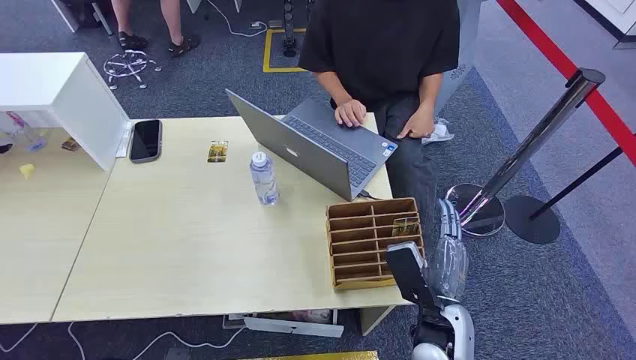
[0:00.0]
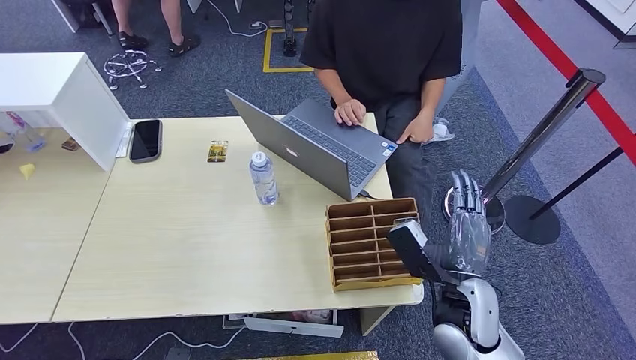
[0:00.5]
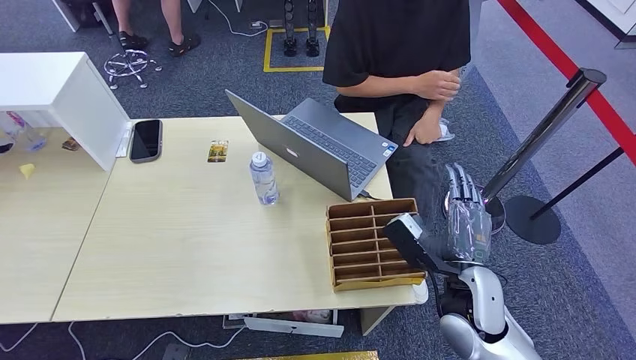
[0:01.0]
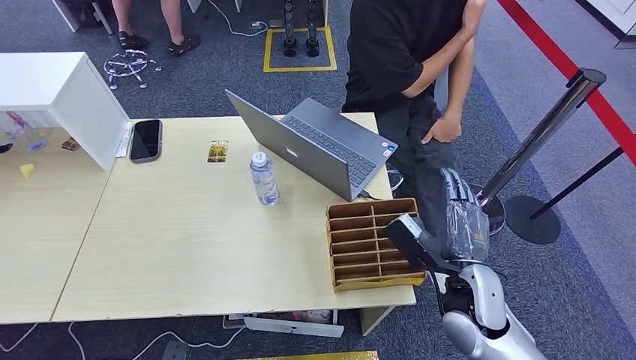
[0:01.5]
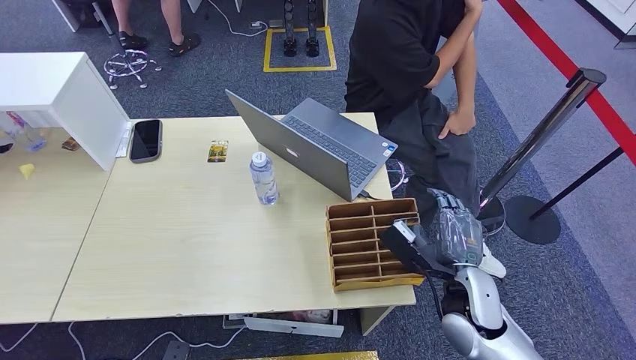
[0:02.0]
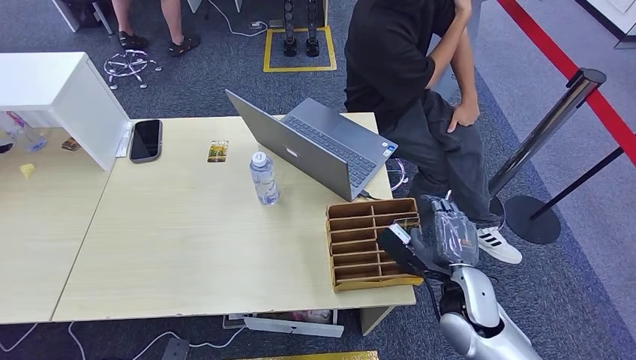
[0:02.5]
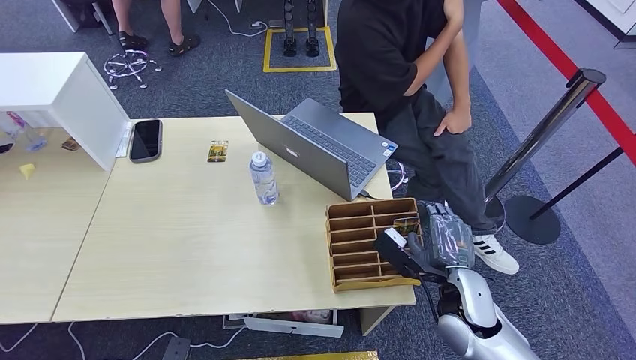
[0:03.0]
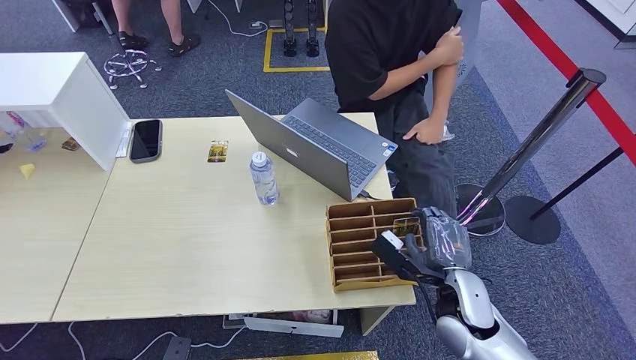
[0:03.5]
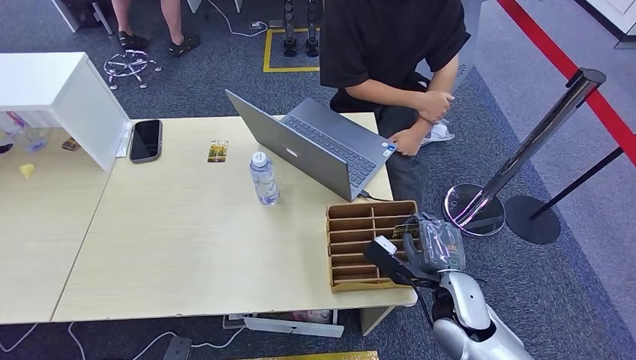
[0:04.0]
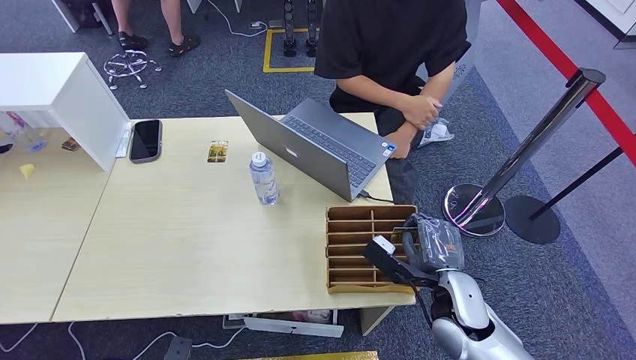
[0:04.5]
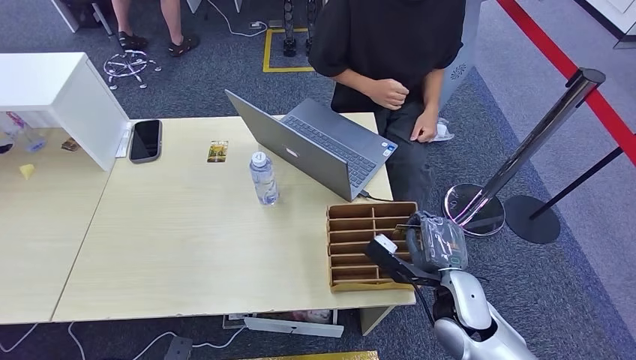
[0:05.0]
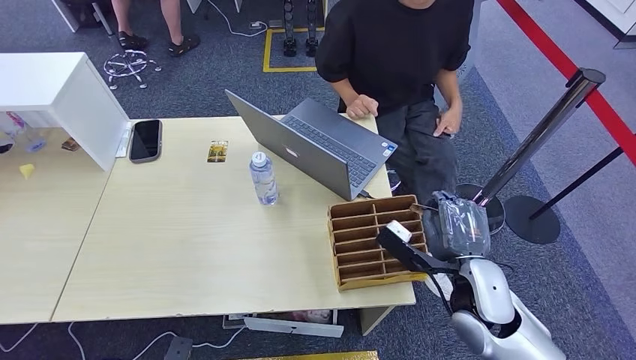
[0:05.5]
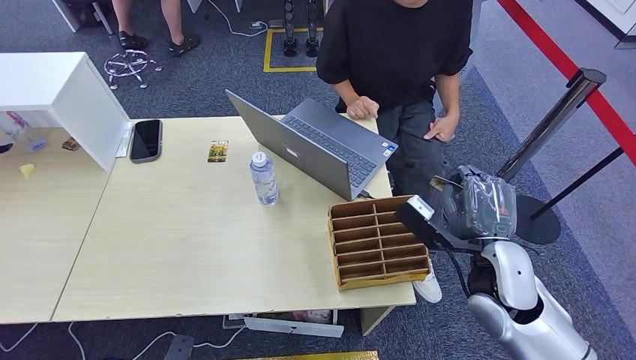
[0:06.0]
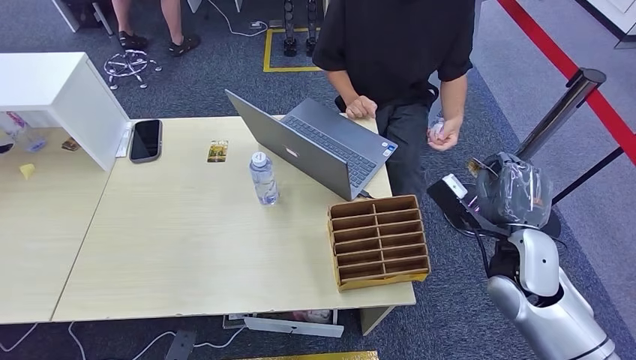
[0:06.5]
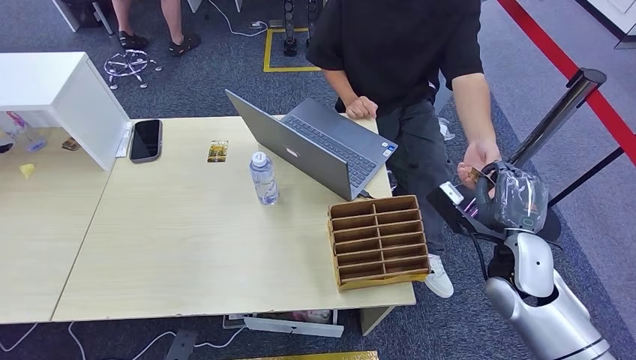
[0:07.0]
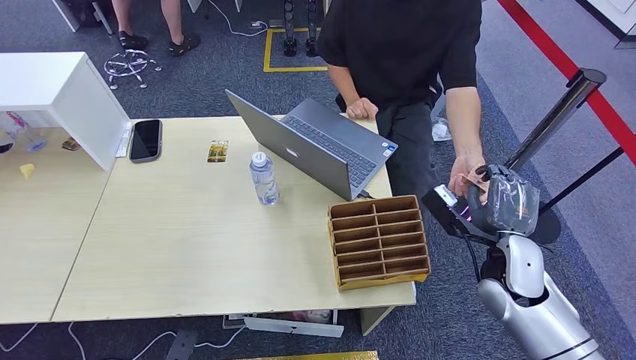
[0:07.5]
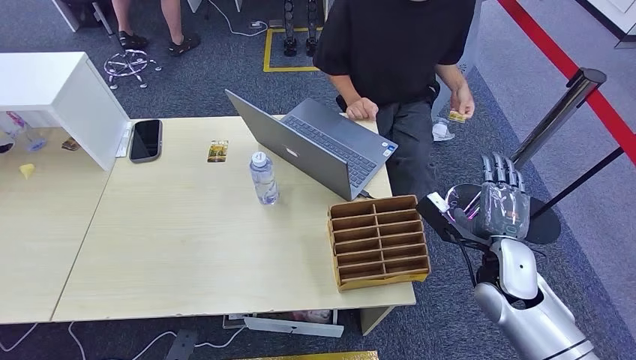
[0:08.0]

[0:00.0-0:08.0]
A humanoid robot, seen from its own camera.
Step, 0:00.0 to 0:05.0: Pick up the key card from the card box.
Step, 0:06.0 to 0:08.0: Hand the key card to the target.
0:02.0 to 0:04.0: The hands make only small movements.
0:04.0 to 0:06.0: The right hand travels upward by about 10 cm.
0:06.0 to 0:08.0: The right hand moves approximately 5 cm.
